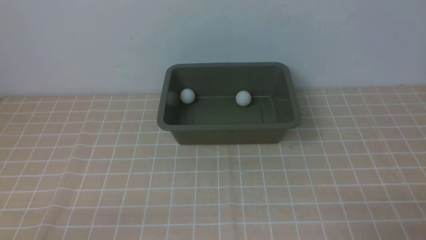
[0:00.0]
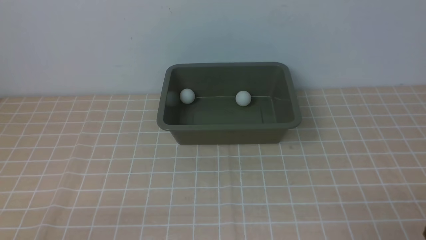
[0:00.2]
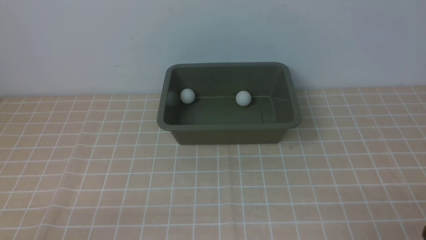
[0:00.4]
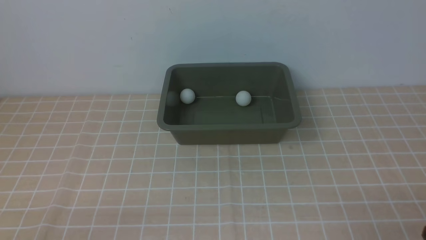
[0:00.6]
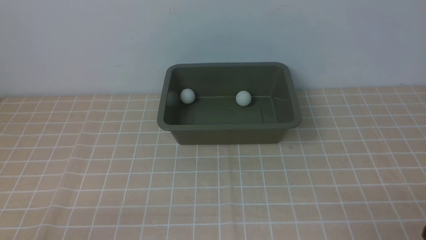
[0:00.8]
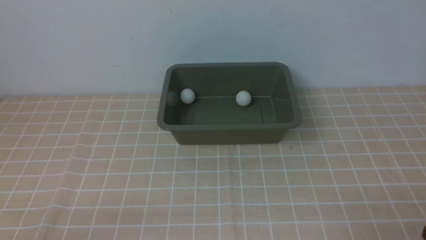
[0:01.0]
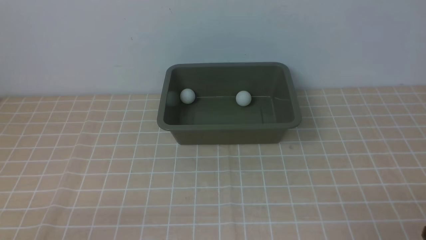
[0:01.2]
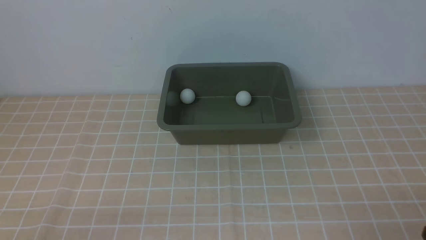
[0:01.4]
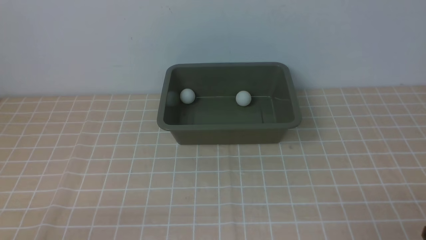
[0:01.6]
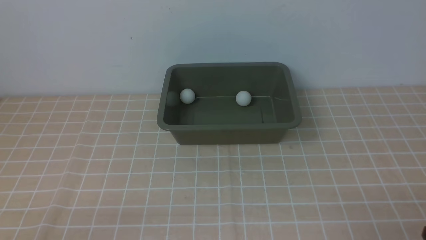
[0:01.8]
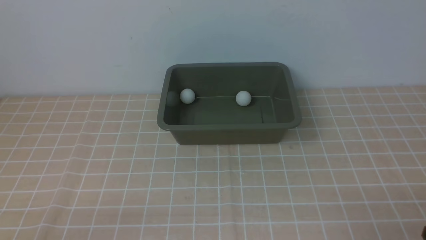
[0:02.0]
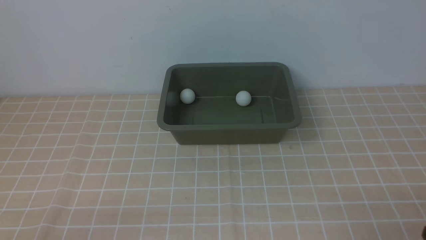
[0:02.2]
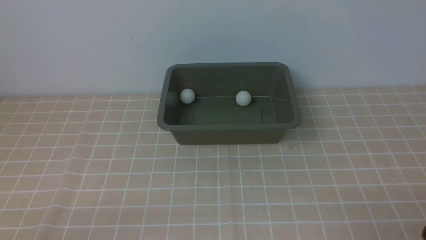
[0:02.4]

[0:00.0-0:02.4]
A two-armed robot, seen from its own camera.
0:00.0 to 0:02.4: Both grippers stay about where they are.
